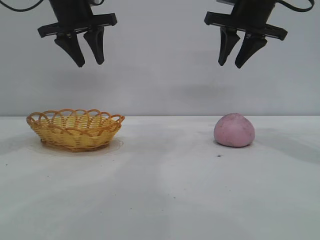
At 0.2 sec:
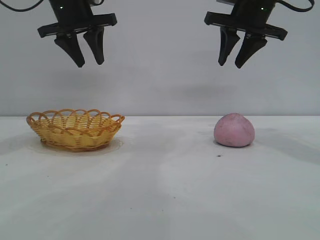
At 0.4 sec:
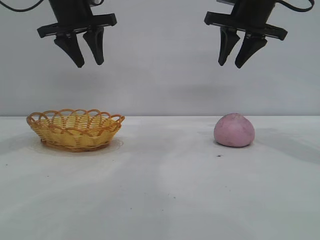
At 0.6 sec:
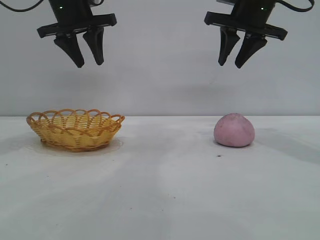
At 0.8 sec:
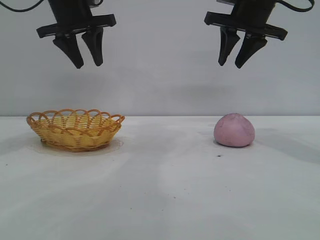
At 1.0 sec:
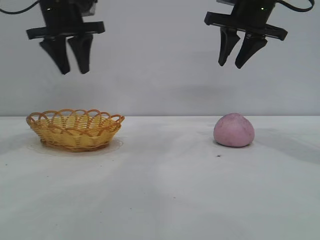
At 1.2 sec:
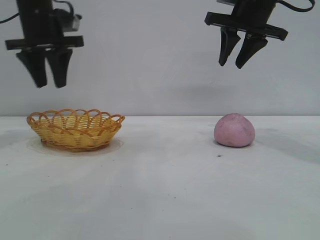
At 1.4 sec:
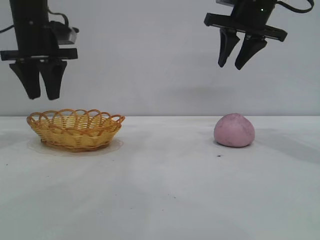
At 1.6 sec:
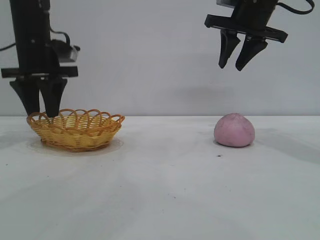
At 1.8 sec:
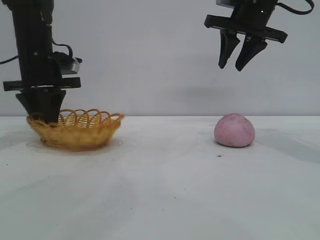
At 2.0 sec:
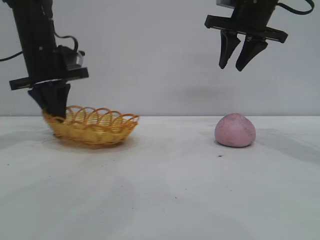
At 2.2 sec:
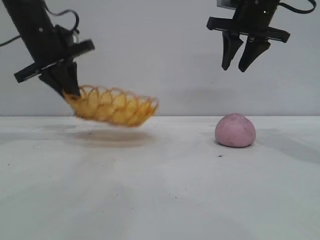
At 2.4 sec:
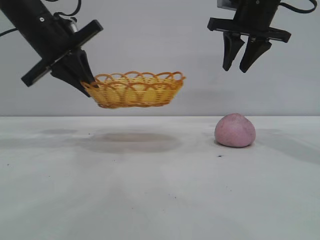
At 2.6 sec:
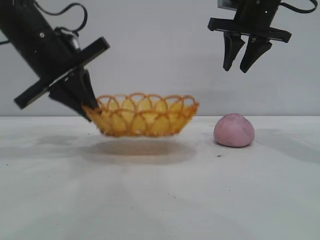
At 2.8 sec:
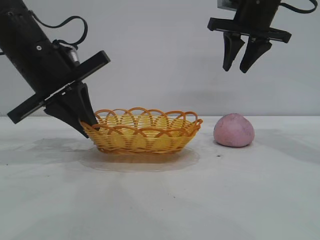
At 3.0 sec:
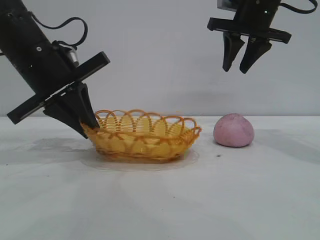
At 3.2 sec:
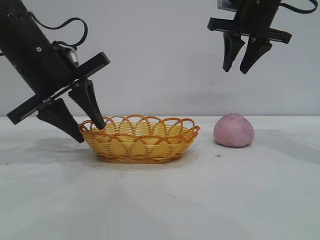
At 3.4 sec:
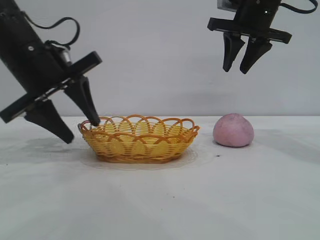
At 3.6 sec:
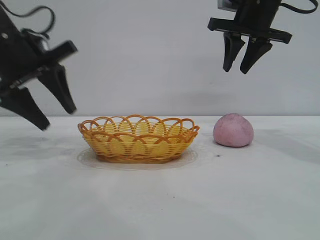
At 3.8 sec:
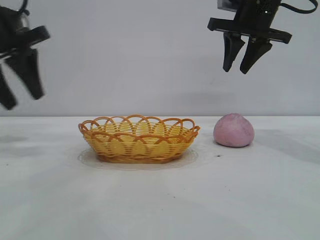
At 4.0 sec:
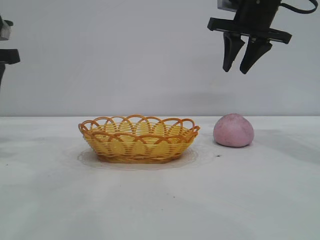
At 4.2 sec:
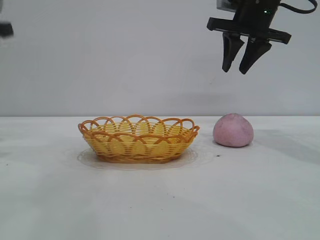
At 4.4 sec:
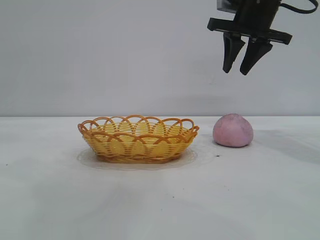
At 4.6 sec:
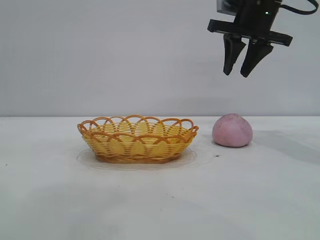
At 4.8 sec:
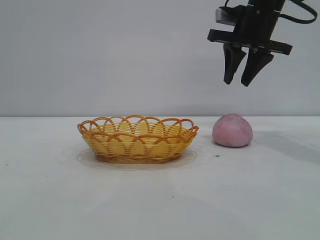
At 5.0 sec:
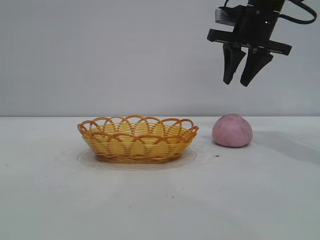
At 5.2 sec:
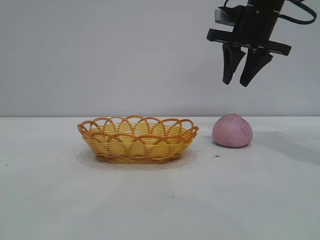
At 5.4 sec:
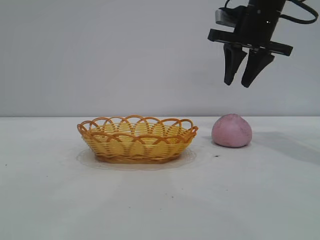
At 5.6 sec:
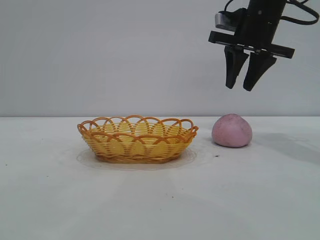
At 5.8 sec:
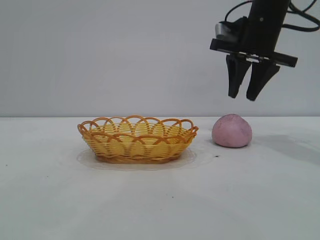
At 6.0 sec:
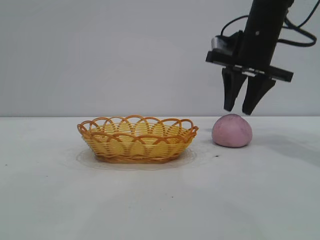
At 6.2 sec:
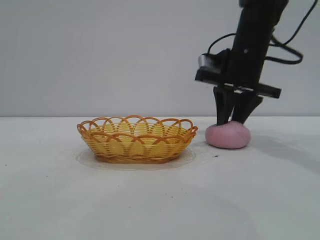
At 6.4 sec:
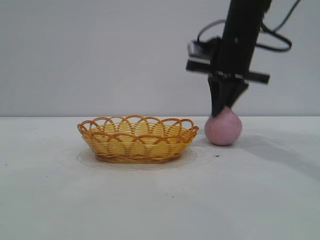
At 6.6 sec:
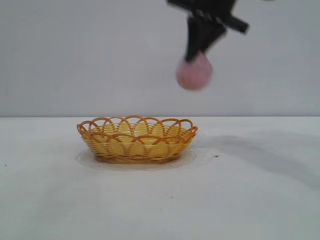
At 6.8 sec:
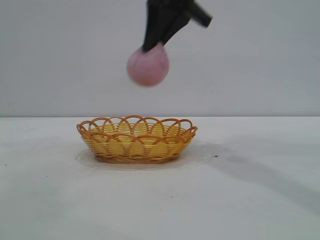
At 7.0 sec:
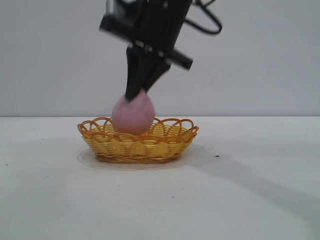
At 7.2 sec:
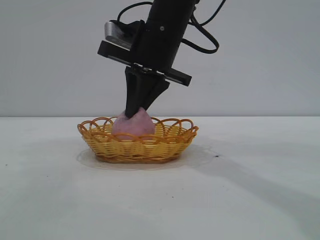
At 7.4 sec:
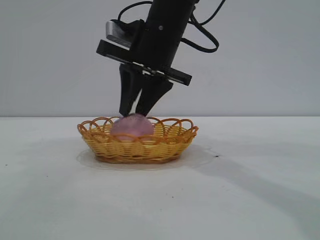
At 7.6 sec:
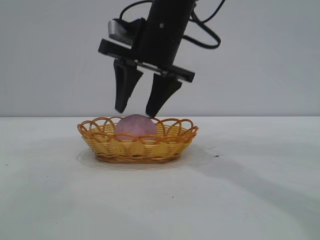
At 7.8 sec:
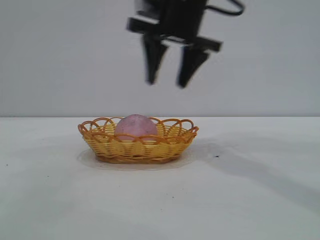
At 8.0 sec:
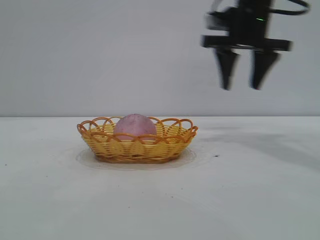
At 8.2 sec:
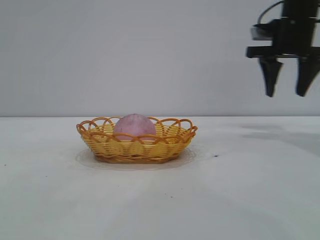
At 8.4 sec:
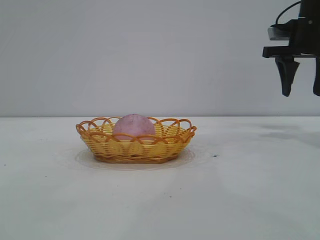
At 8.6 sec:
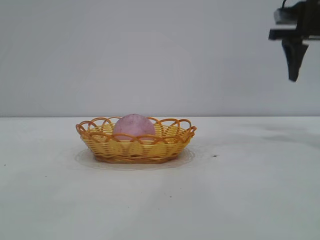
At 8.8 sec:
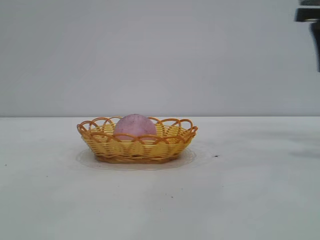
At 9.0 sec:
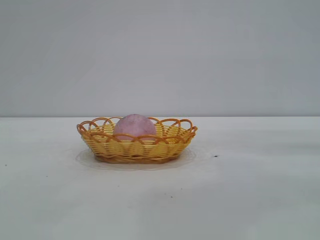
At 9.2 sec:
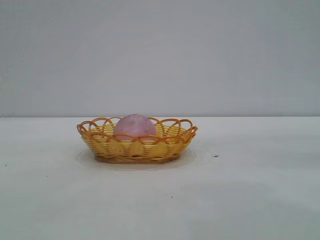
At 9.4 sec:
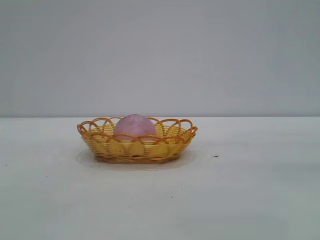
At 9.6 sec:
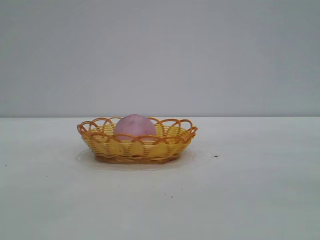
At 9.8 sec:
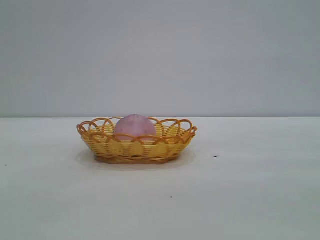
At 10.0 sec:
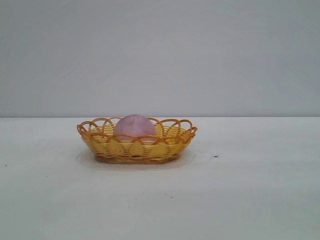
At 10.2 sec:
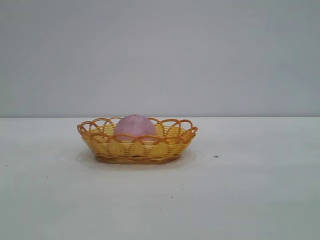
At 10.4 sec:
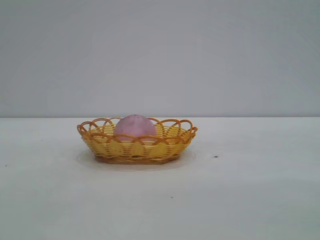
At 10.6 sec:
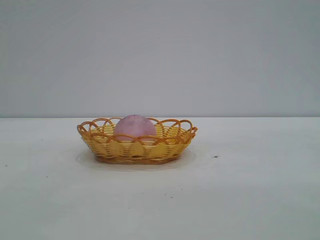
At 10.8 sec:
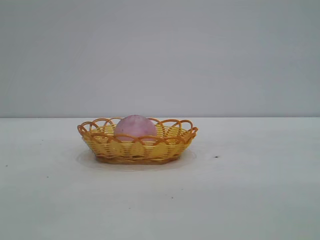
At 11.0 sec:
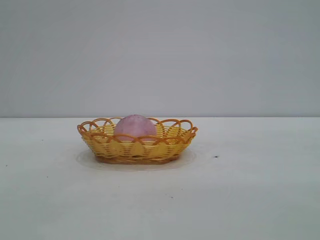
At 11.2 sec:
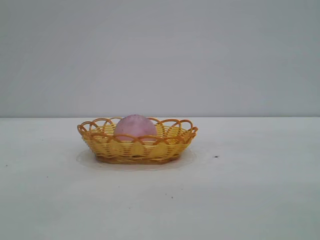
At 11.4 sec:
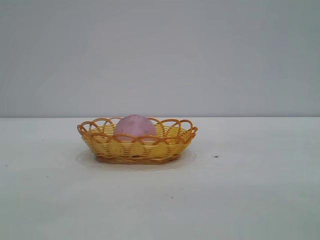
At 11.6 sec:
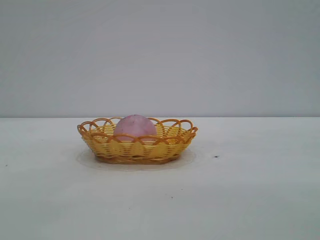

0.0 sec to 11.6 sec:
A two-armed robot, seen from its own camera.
Task of the whole recording: pick up the peach and put it into the basket.
Step, 0.0 sec to 3.4 sec: Move the basket to the center of view.
Step, 3.6 sec to 6.4 sec: Pick up the peach.
Step, 6.6 sec to 7.6 sec: place the peach into the basket.

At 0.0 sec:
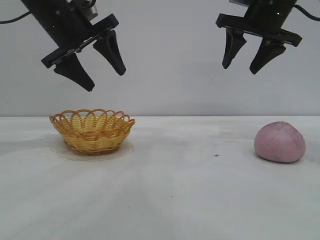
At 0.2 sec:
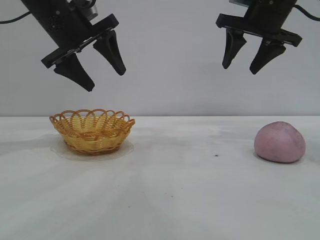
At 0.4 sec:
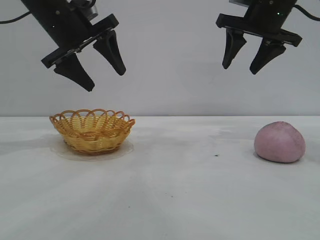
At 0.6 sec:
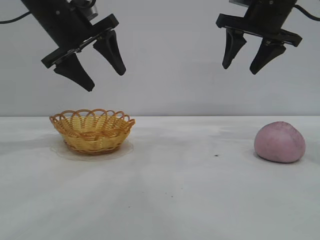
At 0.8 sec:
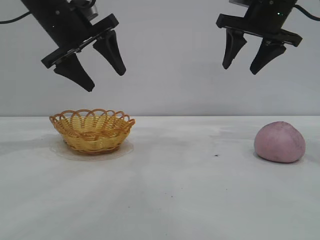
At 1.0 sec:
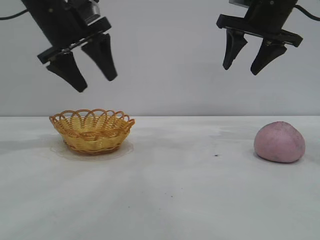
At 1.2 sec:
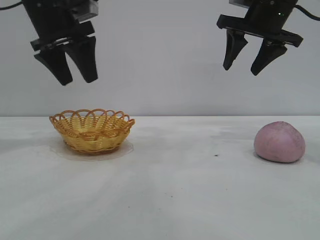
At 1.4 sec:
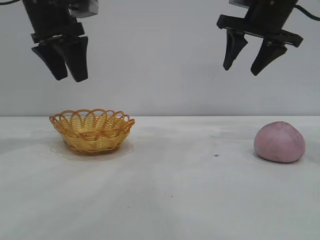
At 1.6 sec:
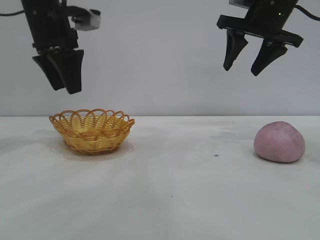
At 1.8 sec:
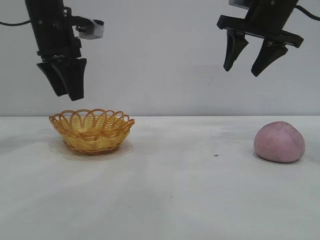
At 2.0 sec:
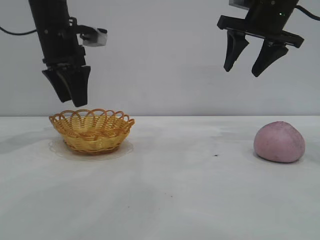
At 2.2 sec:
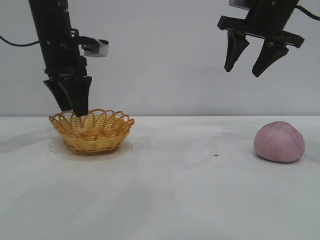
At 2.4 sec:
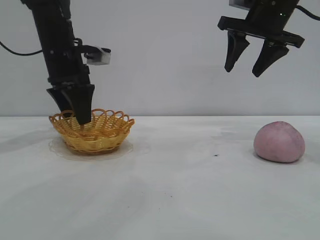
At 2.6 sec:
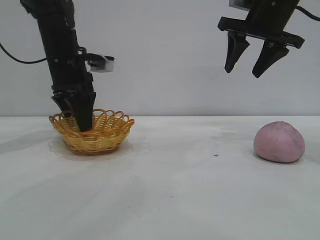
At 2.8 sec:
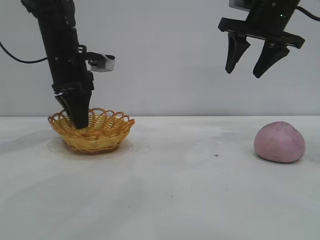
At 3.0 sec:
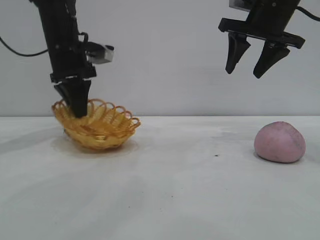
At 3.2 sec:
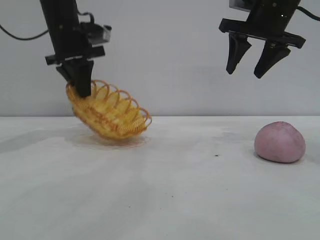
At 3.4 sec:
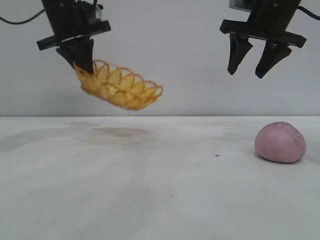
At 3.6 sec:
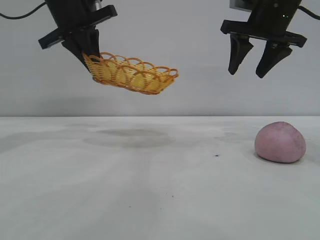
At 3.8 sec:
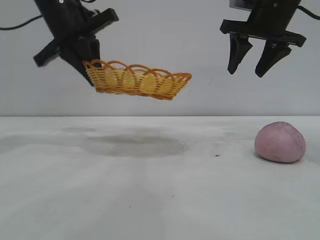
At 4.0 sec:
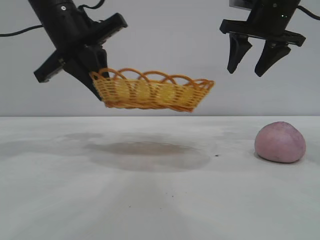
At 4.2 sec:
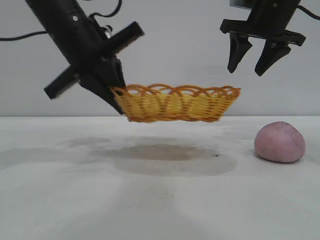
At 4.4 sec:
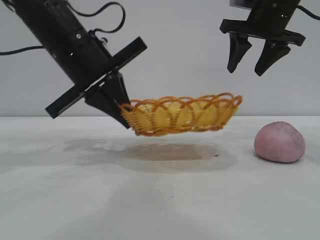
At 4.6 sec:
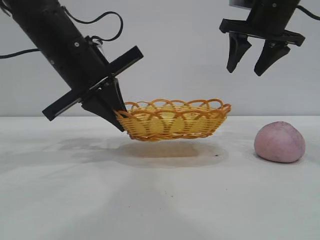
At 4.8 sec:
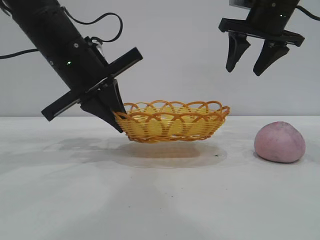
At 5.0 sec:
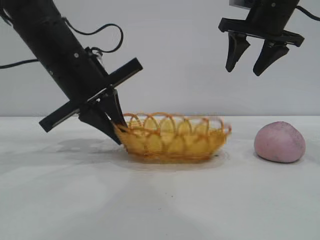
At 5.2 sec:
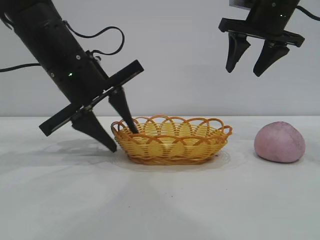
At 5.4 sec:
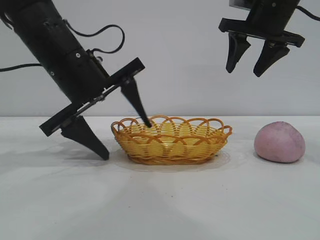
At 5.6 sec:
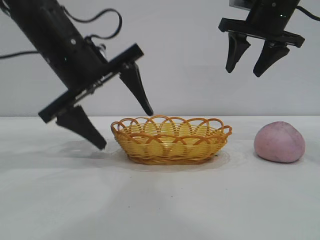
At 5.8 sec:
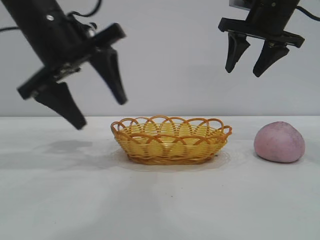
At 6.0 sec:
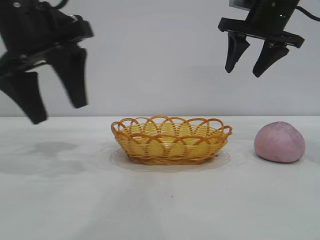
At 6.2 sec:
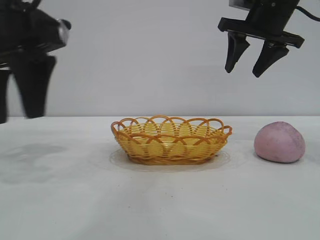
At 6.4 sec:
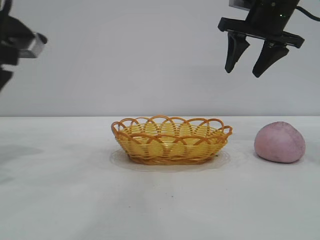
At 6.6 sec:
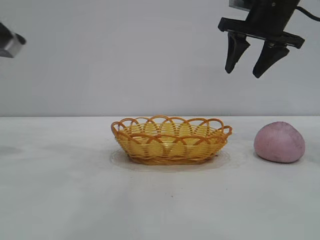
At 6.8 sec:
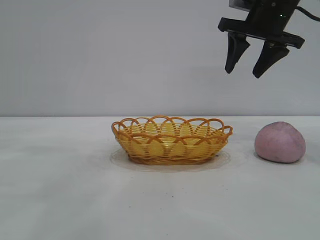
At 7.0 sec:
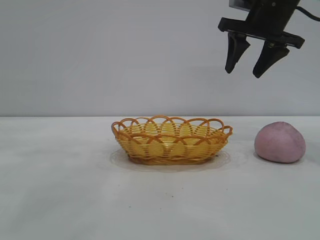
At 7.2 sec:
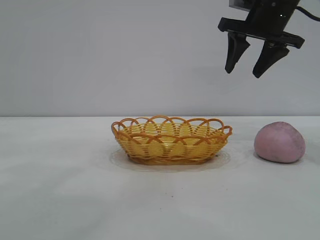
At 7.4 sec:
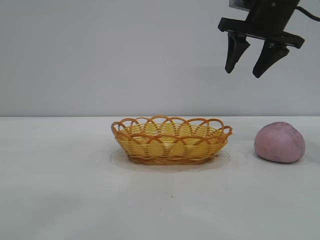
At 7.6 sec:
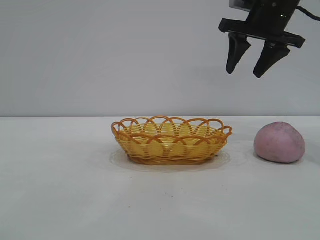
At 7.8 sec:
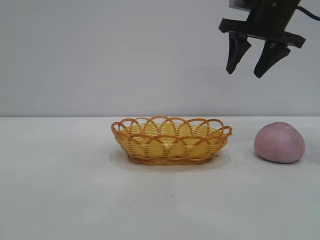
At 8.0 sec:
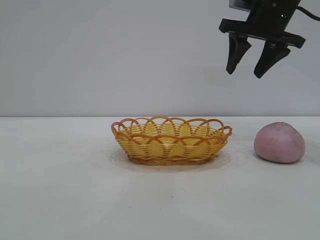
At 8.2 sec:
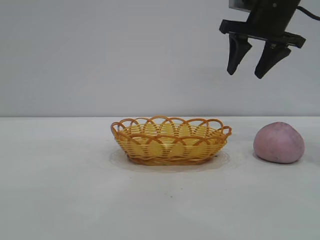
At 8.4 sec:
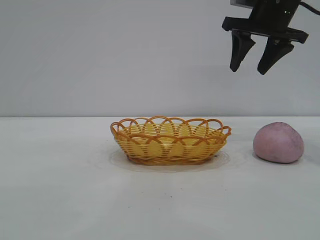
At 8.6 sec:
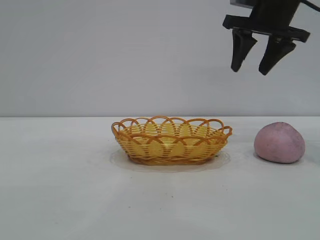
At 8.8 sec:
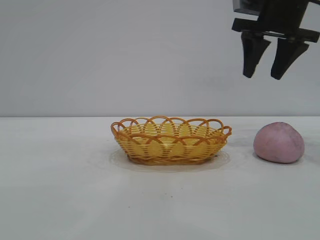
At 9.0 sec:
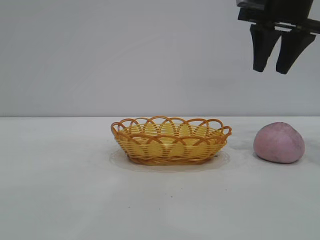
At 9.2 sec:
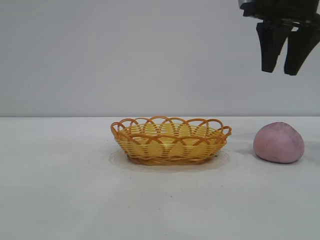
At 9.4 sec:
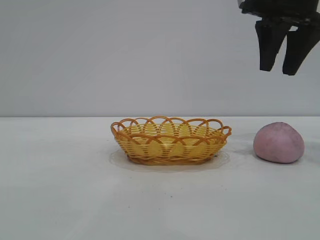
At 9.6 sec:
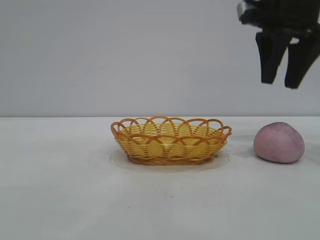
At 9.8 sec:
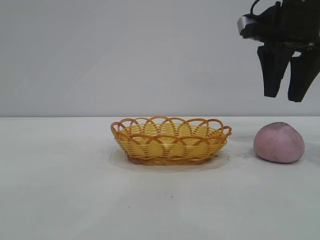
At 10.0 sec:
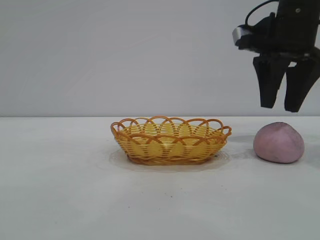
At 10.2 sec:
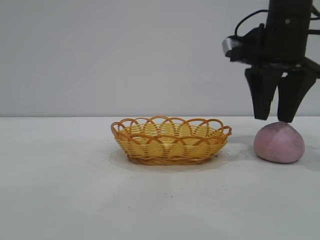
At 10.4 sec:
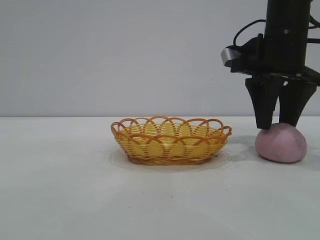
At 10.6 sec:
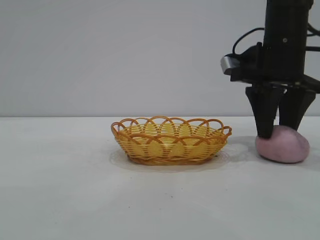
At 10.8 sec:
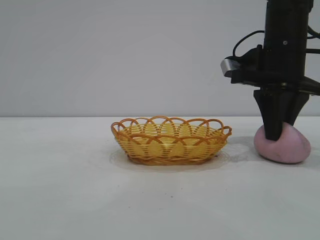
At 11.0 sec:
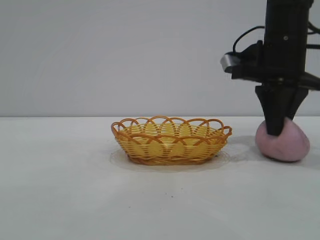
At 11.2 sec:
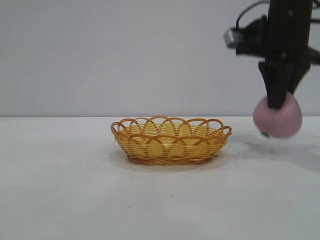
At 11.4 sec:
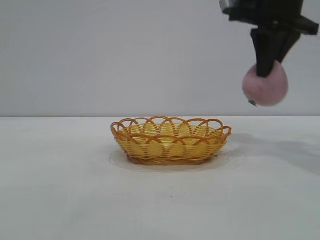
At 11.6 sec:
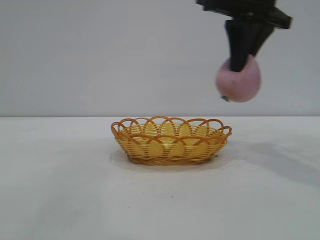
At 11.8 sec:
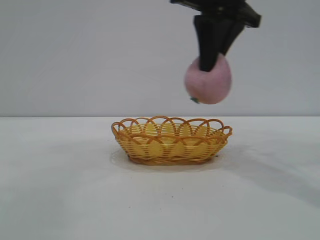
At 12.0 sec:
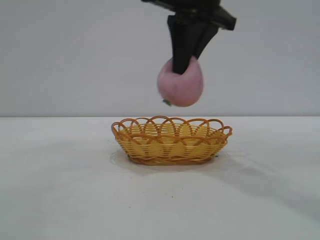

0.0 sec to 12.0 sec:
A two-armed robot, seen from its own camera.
Task of the whole recording: pick up the peach and put it into the basket.
Step, 0.0 sec to 5.8 sec: Move the basket to the center of view.
Step, 6.0 sec to 11.2 sec: Pick up the peach.
